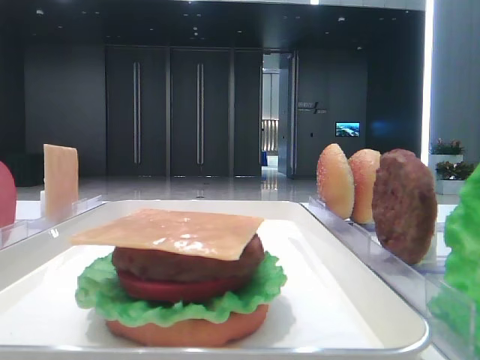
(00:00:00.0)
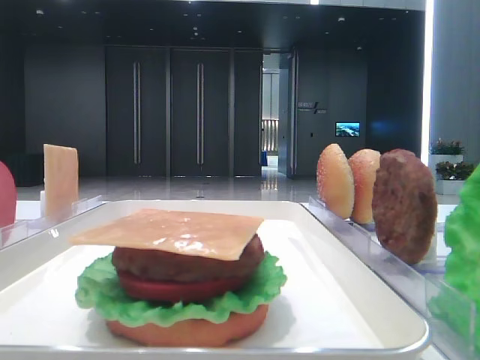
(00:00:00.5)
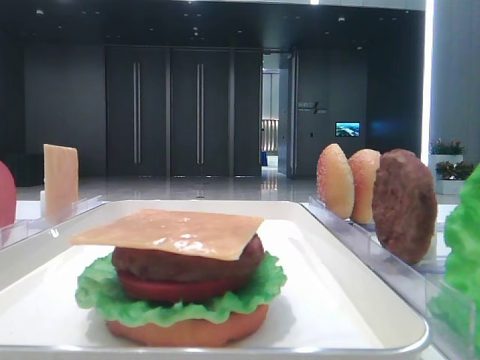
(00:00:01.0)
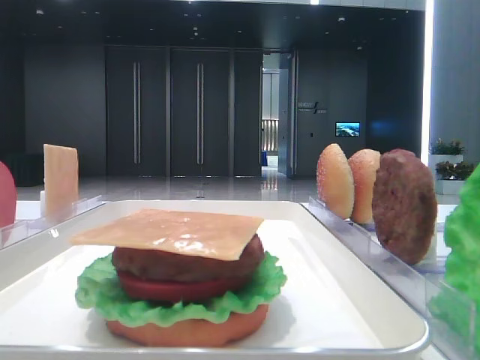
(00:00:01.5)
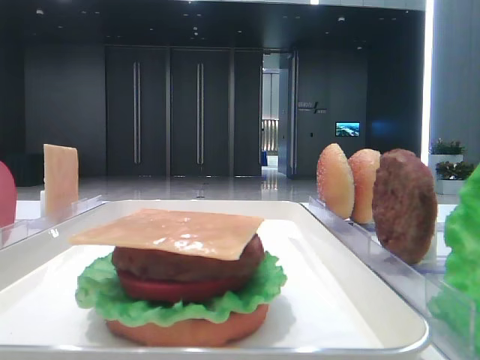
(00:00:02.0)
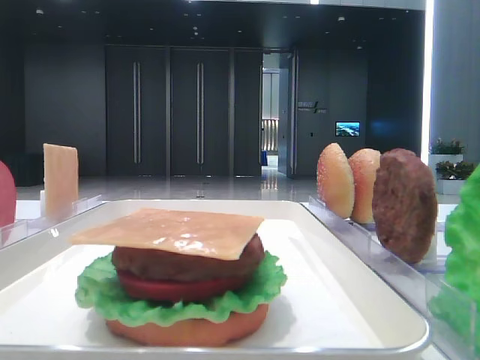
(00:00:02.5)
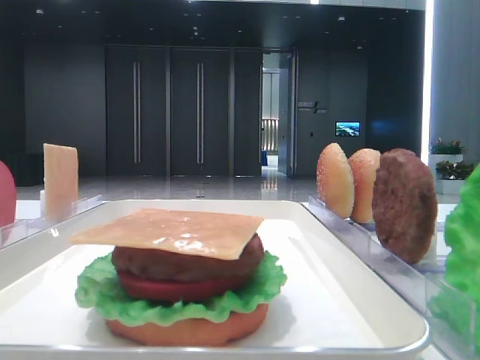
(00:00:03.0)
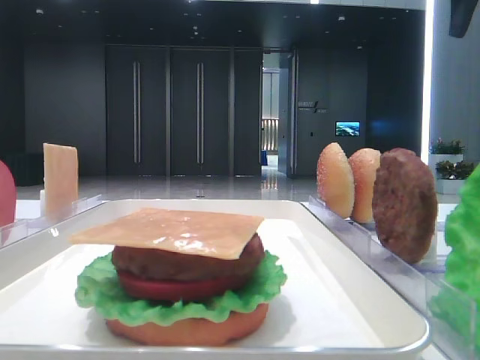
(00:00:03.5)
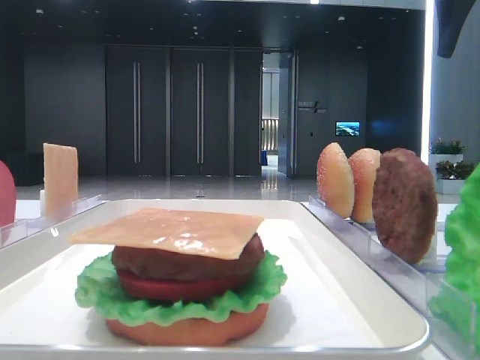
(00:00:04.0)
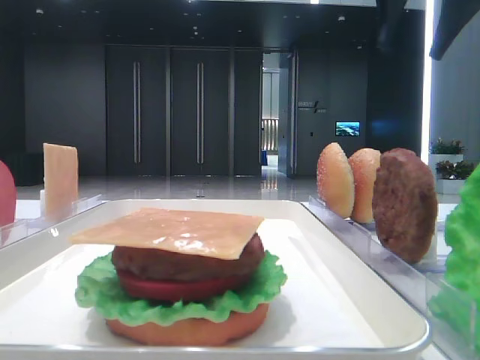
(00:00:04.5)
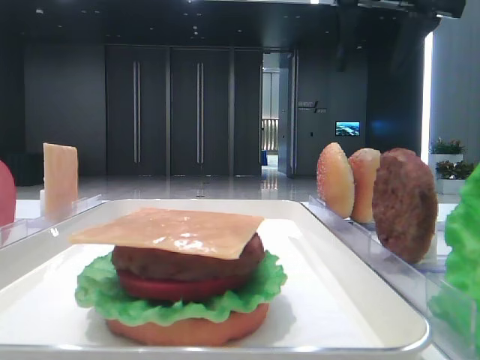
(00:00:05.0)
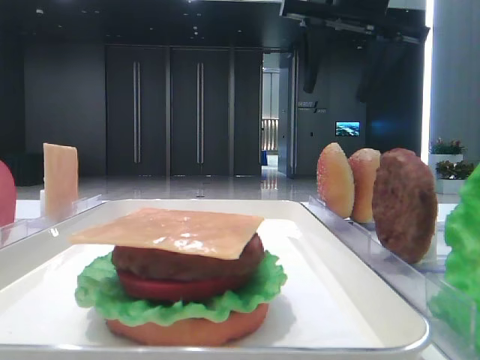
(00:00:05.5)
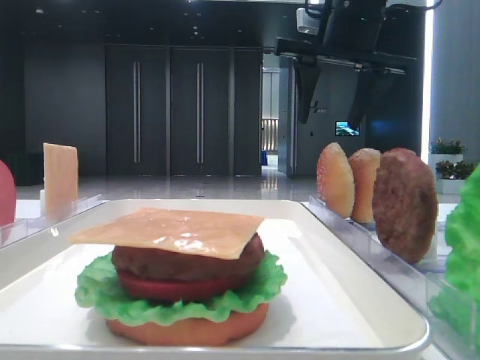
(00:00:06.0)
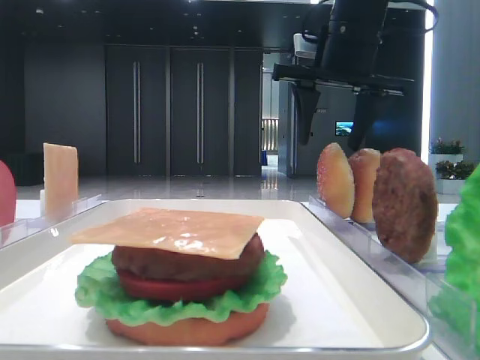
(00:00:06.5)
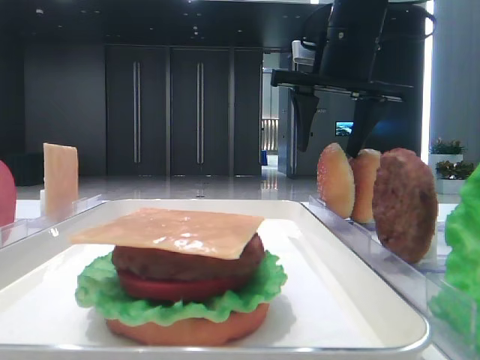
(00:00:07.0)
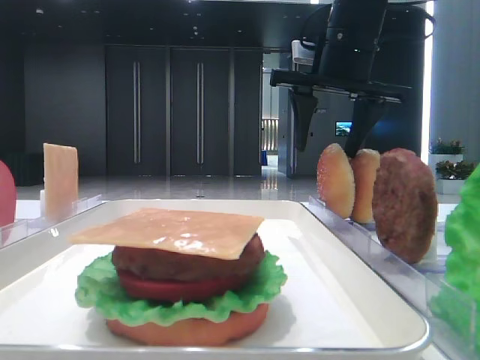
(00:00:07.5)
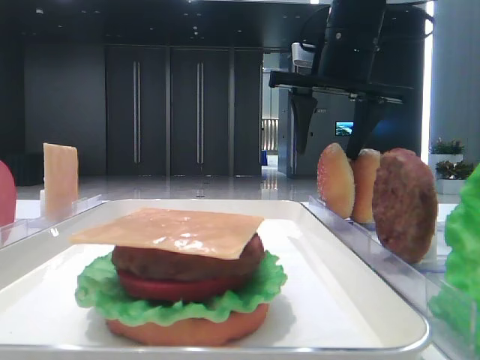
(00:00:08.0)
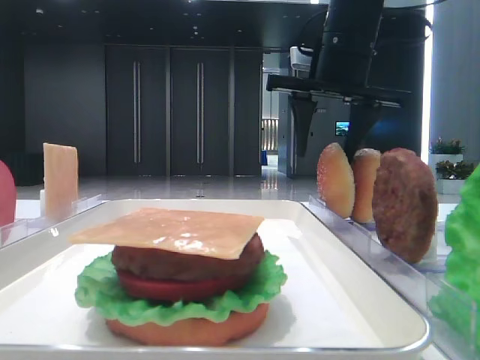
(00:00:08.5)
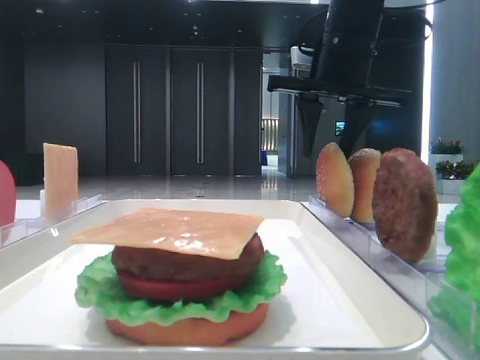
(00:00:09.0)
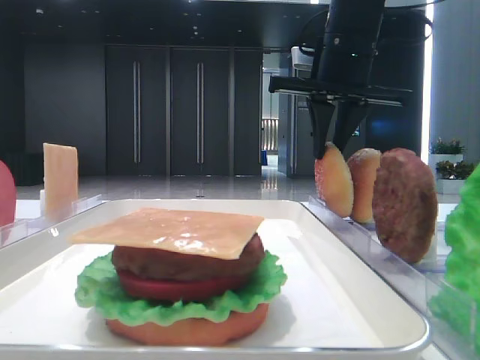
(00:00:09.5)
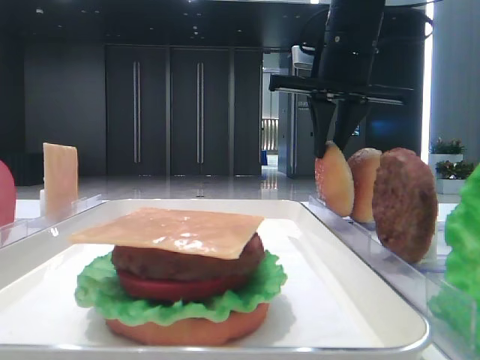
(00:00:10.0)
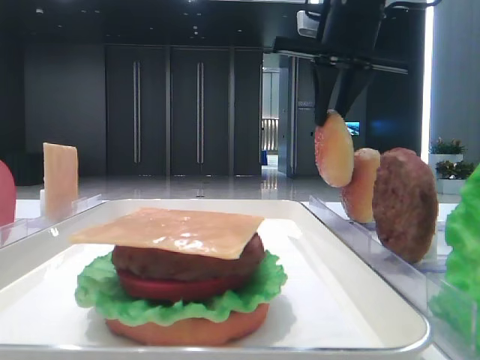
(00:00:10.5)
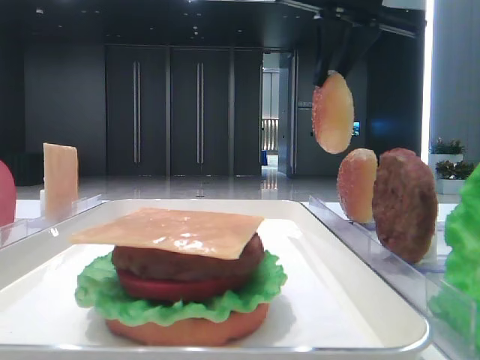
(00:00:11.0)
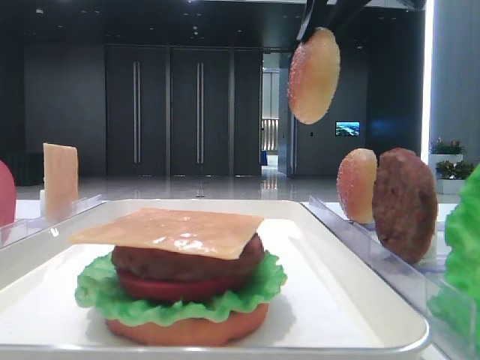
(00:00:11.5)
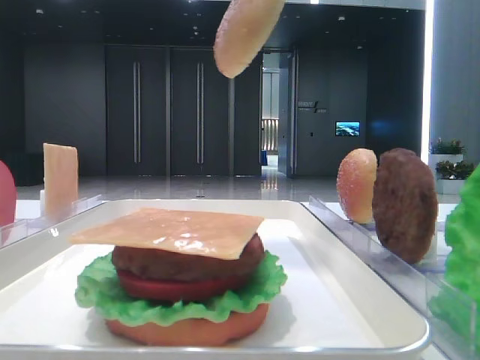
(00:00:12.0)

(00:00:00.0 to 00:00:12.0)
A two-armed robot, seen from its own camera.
Step, 00:00:00.0 - 00:00:10.0: Pick up the top bread slice with the right hand.
00:00:02.0 - 00:00:04.0: The right gripper shifts approximately 35 cm forward.
00:00:04.0 - 00:00:06.0: The right gripper travels to the left and downward by about 15 cm.
00:00:06.0 - 00:00:08.0: There are only small adjustments of the grippers.
00:00:08.0 - 00:00:10.0: The right gripper closes up.
00:00:10.0 - 00:00:12.0: The right gripper moves backward and upward, about 15 cm.

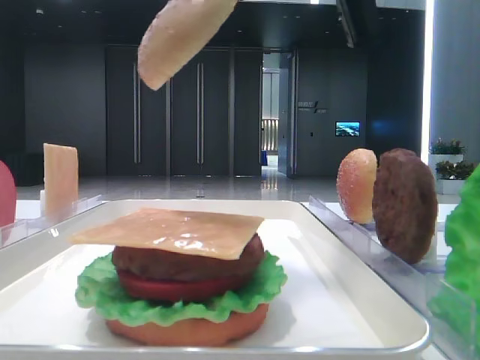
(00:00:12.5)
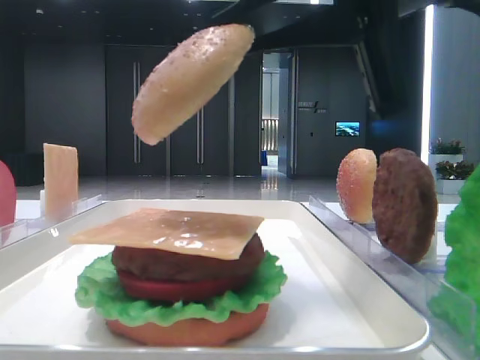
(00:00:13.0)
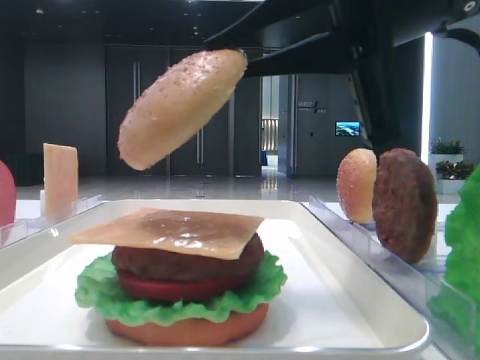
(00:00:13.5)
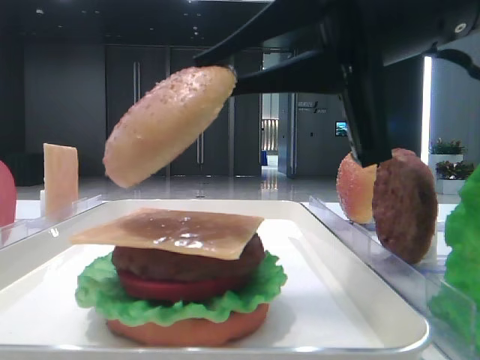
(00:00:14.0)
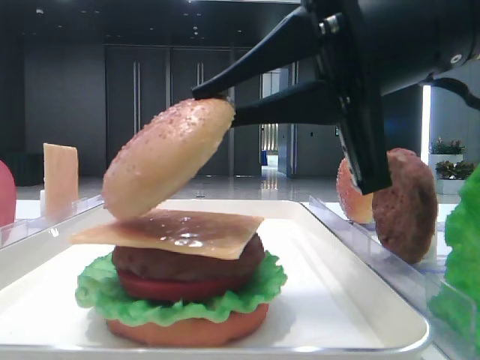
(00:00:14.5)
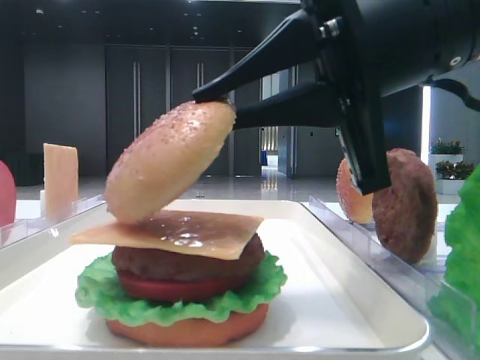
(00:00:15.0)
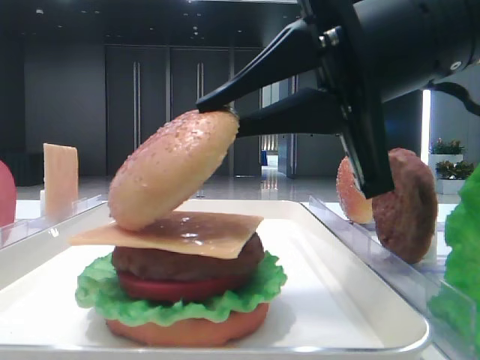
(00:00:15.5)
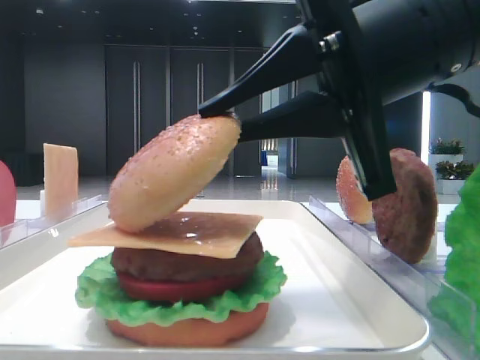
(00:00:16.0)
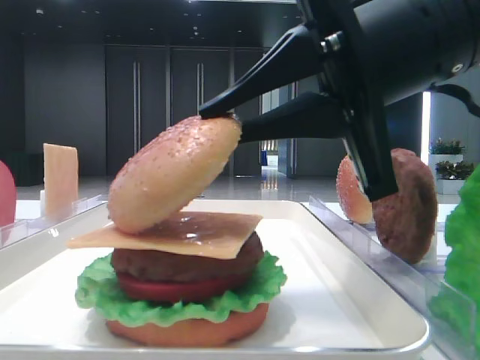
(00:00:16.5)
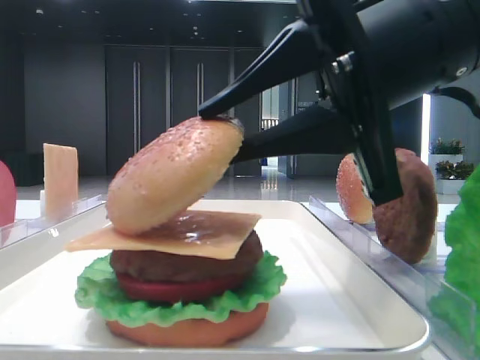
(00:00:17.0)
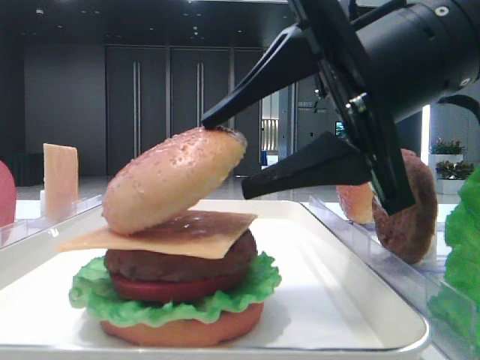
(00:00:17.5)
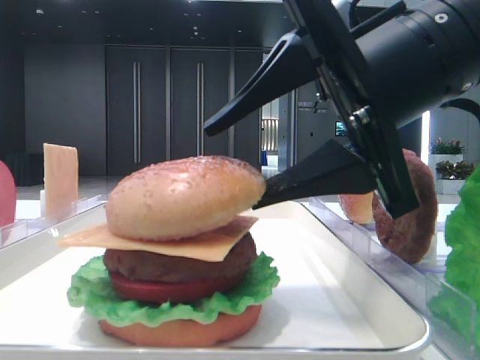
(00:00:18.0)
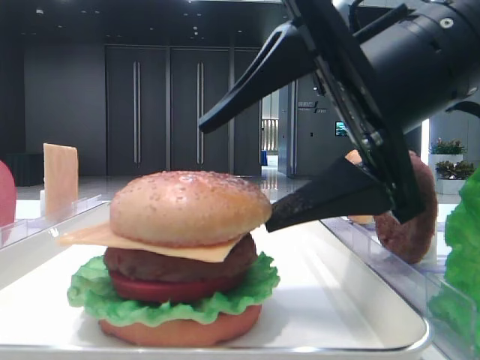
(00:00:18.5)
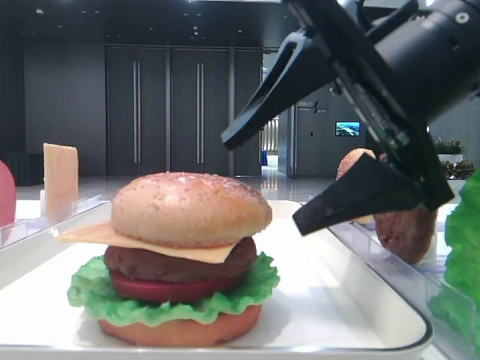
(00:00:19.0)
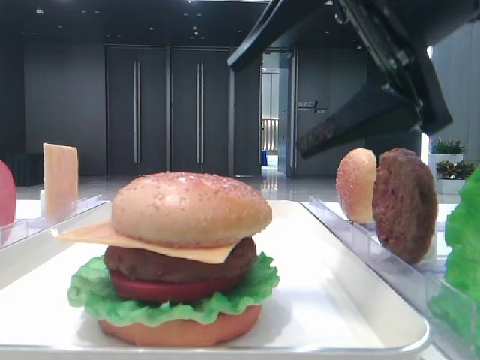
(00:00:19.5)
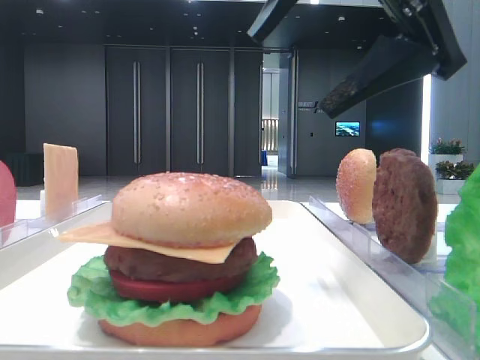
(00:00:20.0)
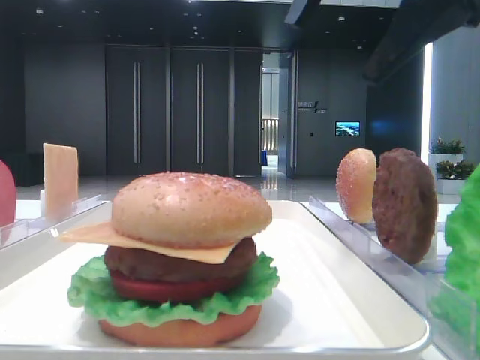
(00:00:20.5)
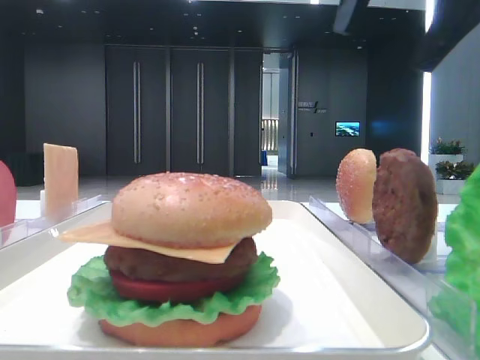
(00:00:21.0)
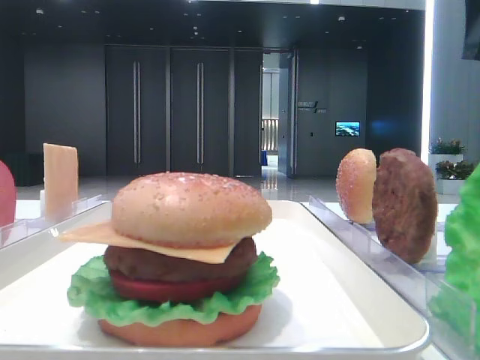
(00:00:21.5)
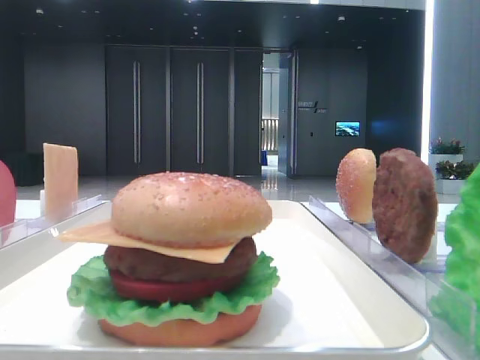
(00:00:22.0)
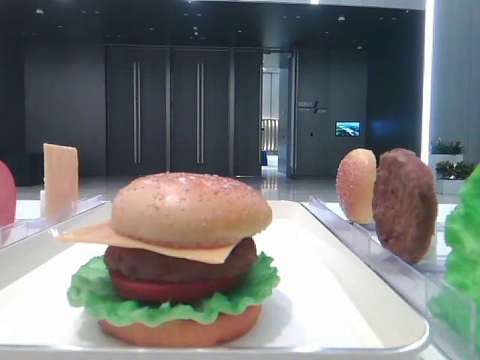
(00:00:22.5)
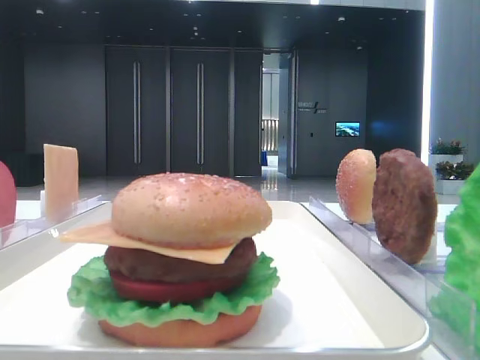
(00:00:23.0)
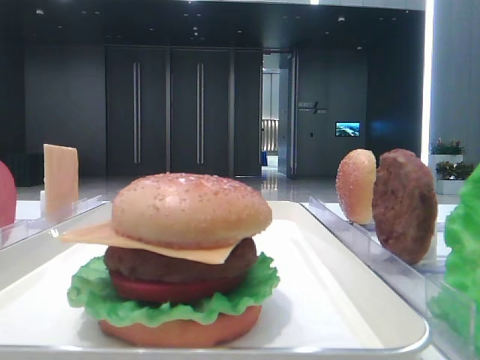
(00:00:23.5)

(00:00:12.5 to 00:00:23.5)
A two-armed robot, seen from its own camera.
Step, 00:00:12.5 - 00:00:18.5: Place the top bread slice on the cheese with the right hand.
00:00:12.5 - 00:00:14.5: The right gripper heads downward, covering some 10 cm.
00:00:14.5 - 00:00:16.0: The two grippers keep their place.
00:00:16.0 - 00:00:18.0: The right gripper opens its fingers.
00:00:18.0 - 00:00:20.0: The right gripper moves upward, some 10 cm.
00:00:20.0 - 00:00:21.5: The right gripper is displaced to the right and upward by some 15 cm.
00:00:21.5 - 00:00:23.5: The right gripper goes approximately 25 cm backward.

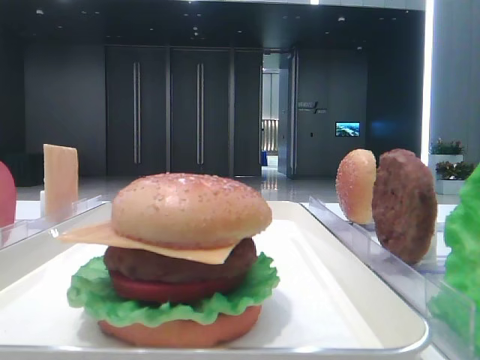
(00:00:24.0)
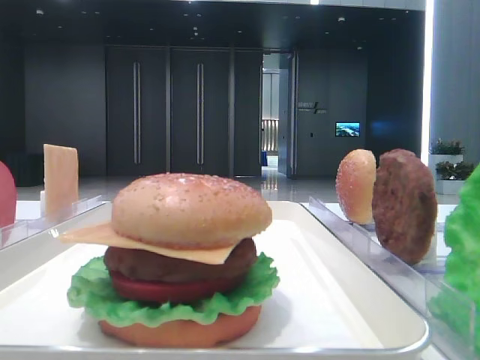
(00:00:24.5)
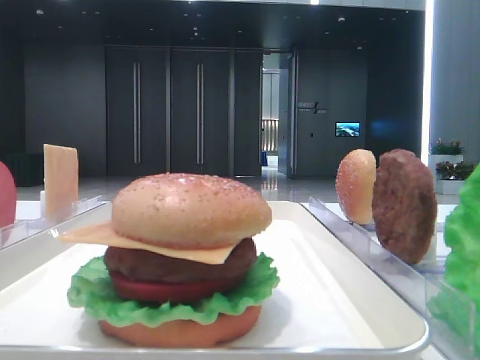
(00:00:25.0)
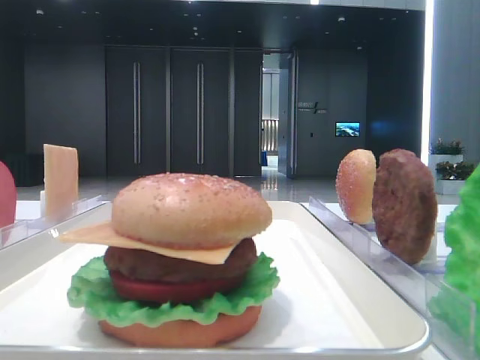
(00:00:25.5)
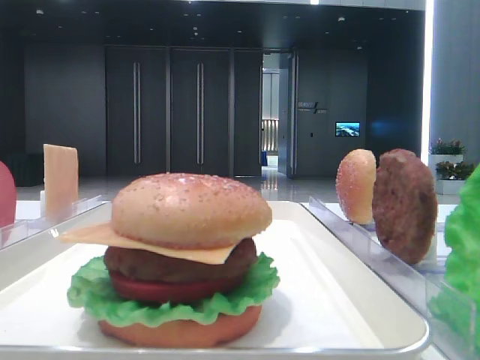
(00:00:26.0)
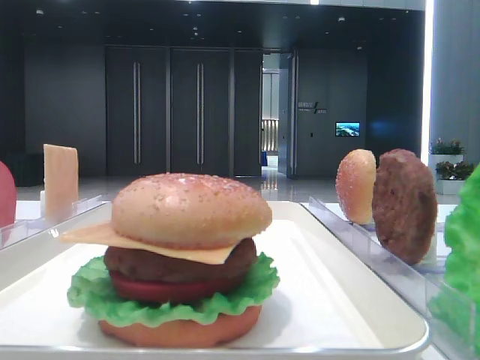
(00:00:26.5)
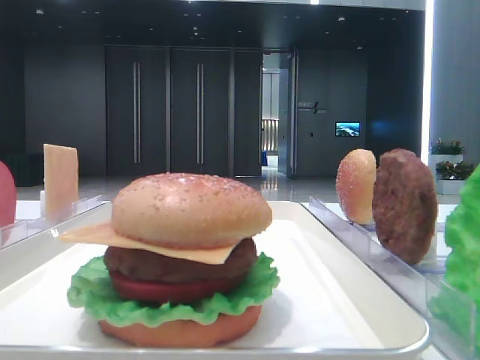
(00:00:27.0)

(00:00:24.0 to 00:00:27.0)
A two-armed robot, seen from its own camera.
00:00:24.0 - 00:00:27.0: Neither gripper changes place.
